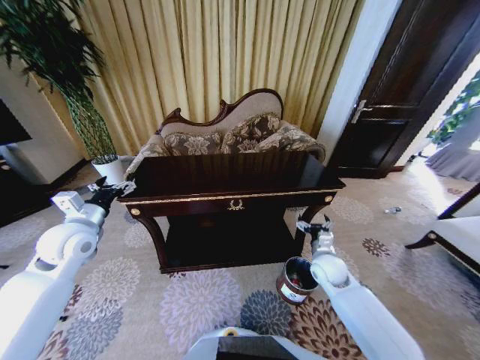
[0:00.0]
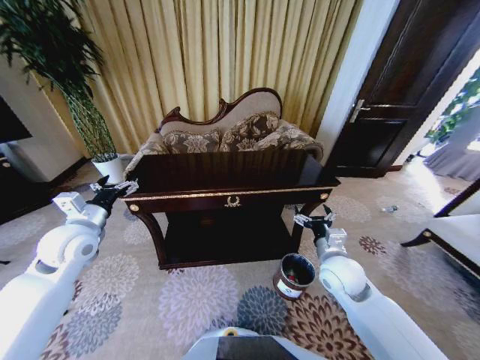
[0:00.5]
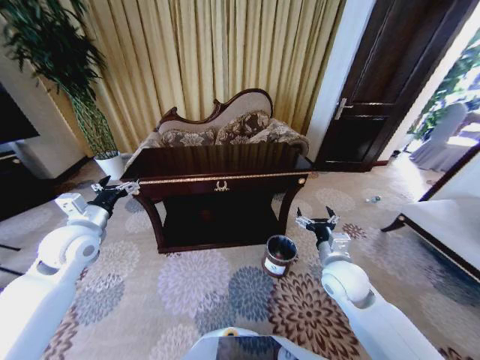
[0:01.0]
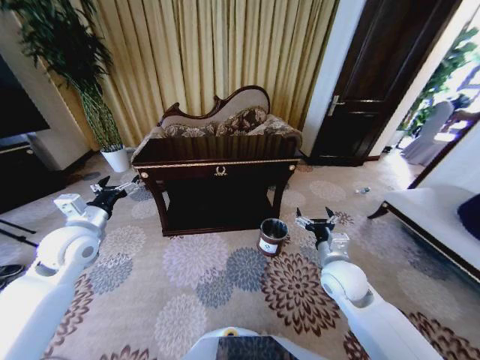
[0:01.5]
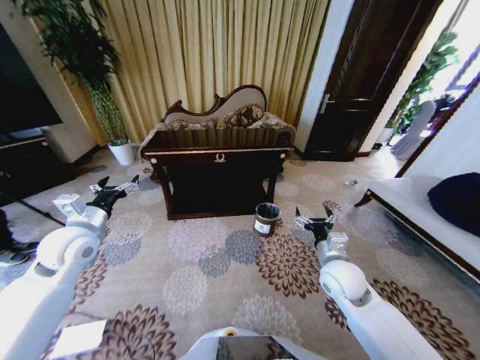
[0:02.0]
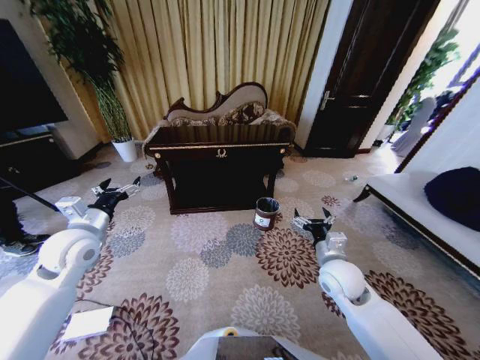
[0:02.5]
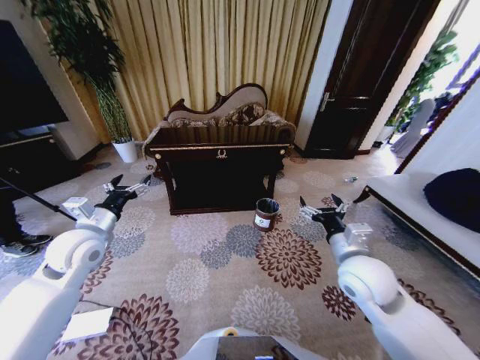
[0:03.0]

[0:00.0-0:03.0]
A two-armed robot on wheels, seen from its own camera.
Task of the whole recording: Move to the front of the table and place the trash on the table into the trash bin.
0:00.0 to 0:01.5: The right gripper is displaced upward and backward by about 5 cm.
0:01.5 to 0:03.0: The right gripper travels upward by approximately 10 cm.

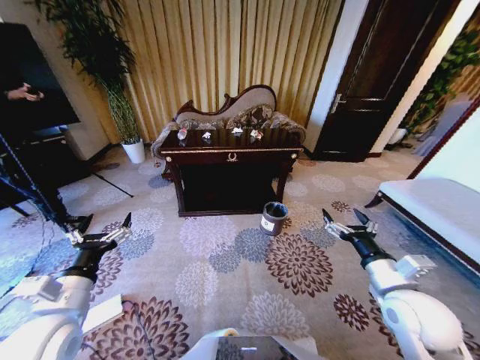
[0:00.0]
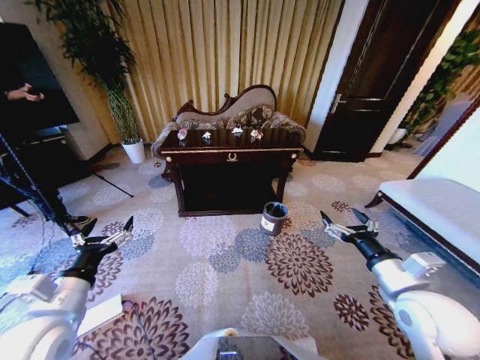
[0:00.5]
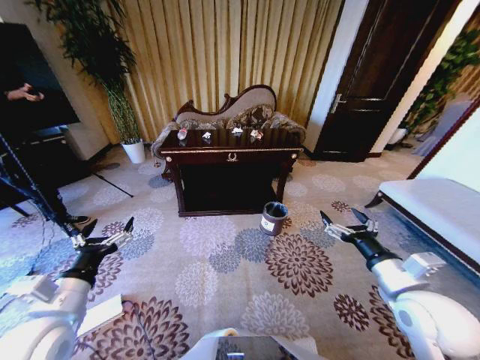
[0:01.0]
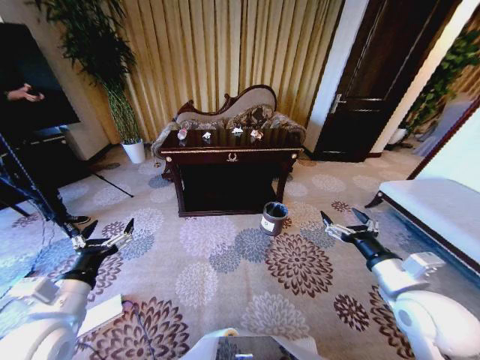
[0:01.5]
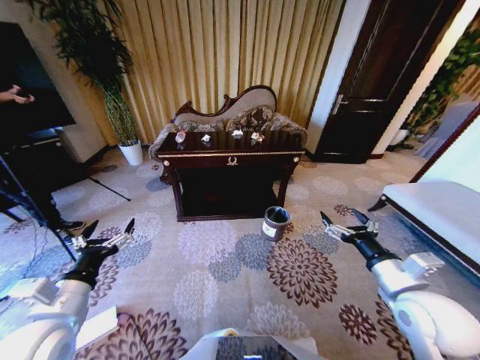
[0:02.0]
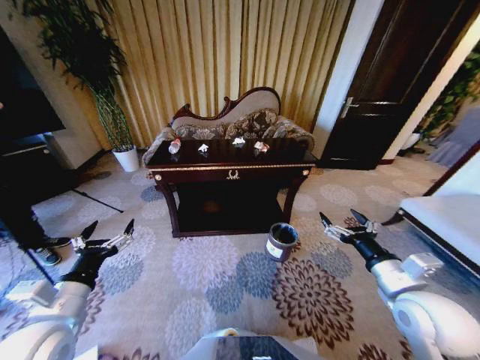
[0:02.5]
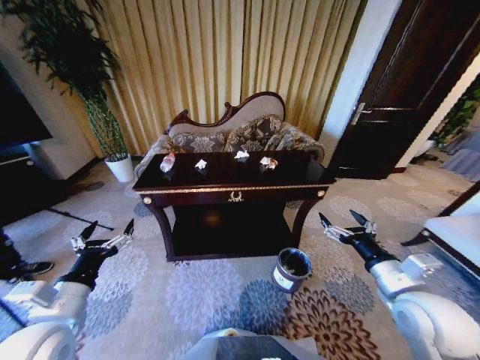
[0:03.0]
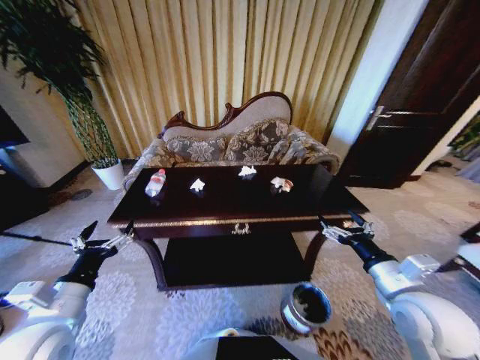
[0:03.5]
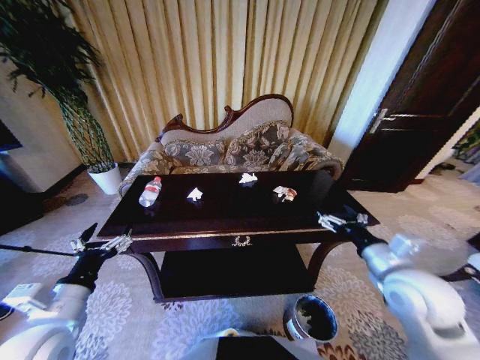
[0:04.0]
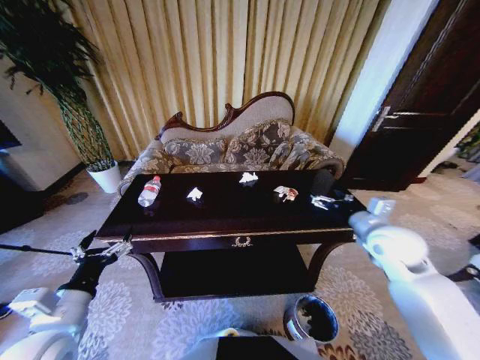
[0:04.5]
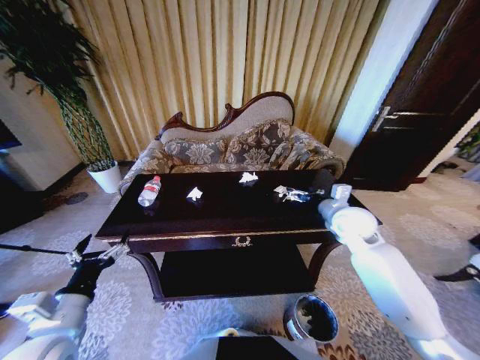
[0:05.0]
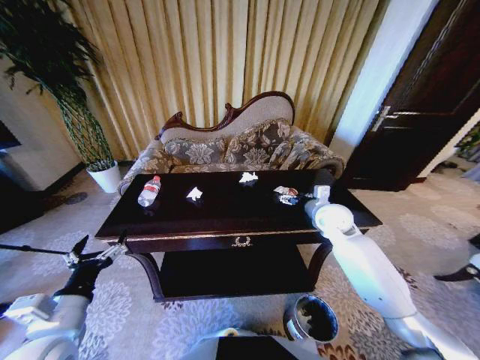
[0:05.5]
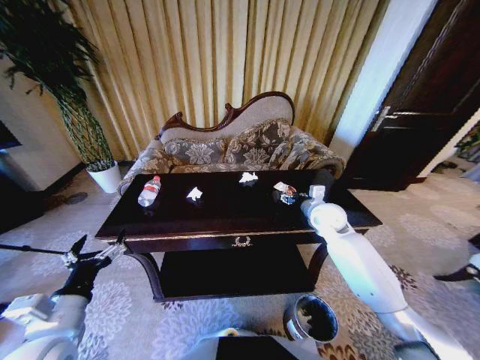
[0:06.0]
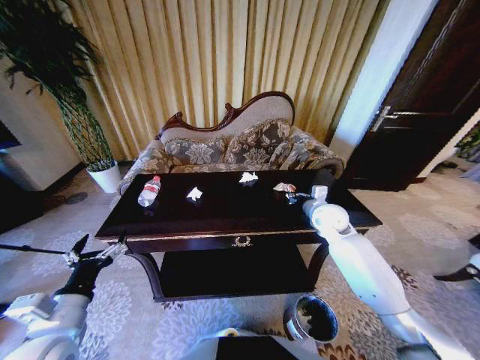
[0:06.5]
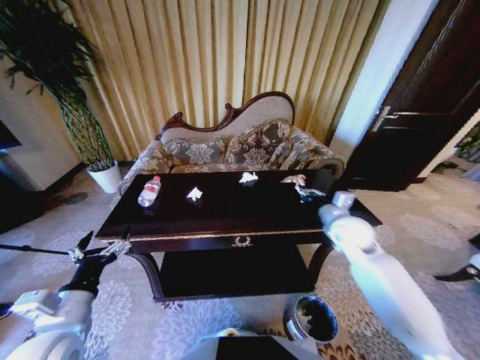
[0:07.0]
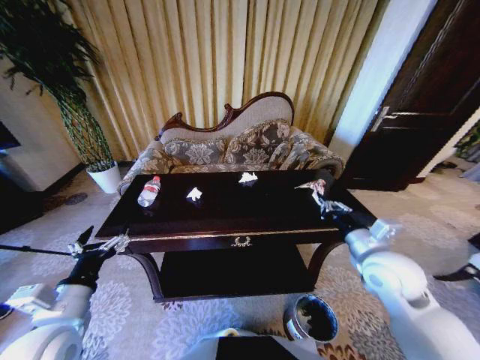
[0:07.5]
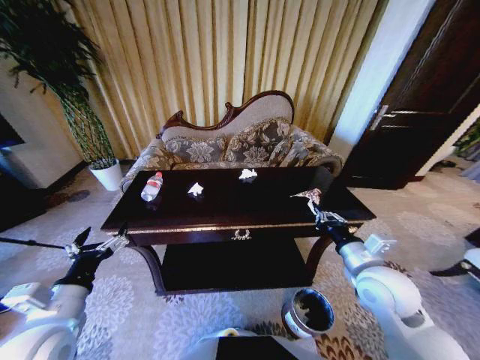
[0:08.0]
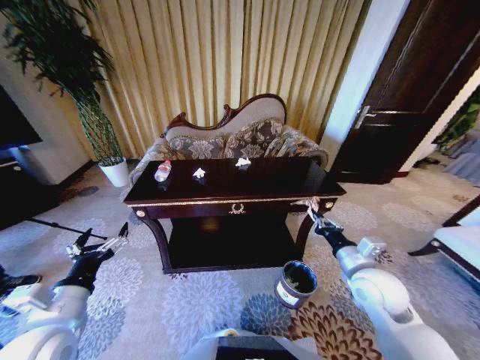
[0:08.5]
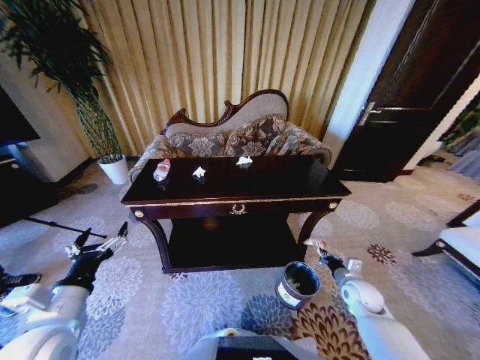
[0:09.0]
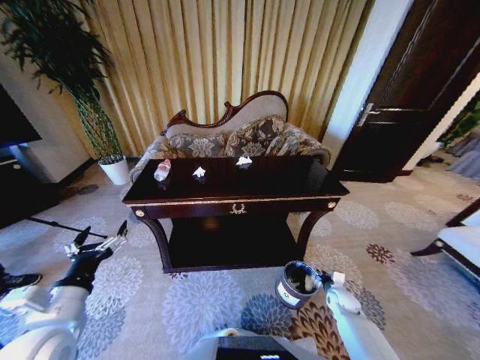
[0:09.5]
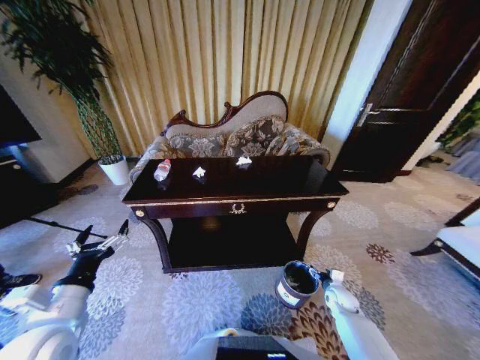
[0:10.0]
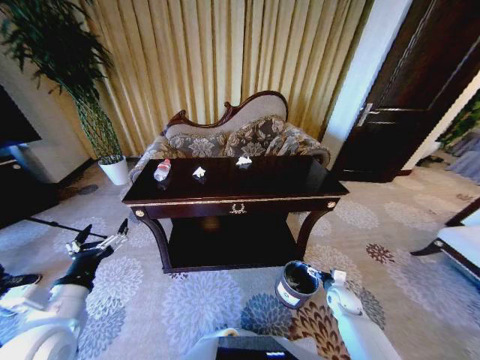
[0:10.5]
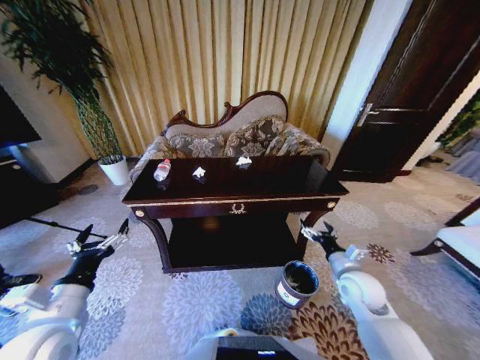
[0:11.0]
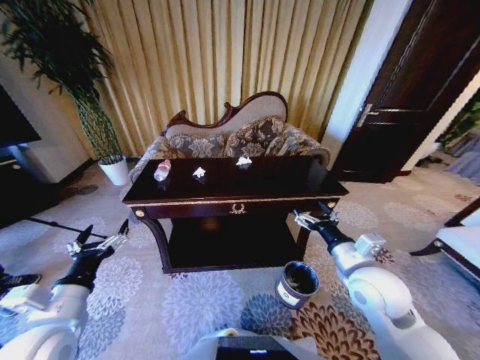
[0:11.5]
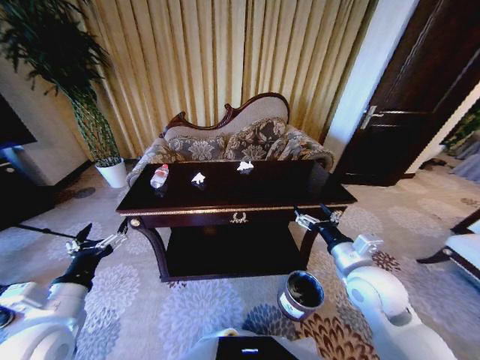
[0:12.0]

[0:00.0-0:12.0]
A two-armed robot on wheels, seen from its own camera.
Task of the whole recording: Move to the front of the table and place the trash on the table into the trash bin.
0:04.0 to 0:06.0: The right gripper moves forward, approximately 25 cm, and closes its fingers.
0:06.0 to 0:08.0: The right gripper heads backward, covering approximately 20 cm, and closes.
0:08.0 to 0:10.0: The right gripper shifts approximately 30 cm downward, and opens.
0:10.0 to 0:12.0: The right gripper travels upward by approximately 30 cm.

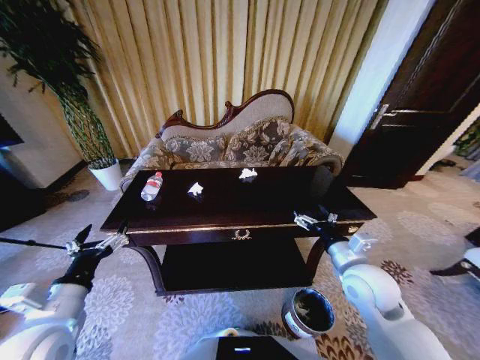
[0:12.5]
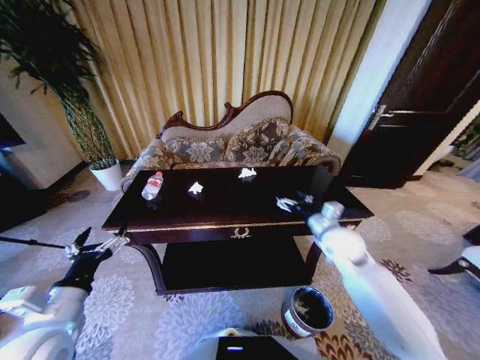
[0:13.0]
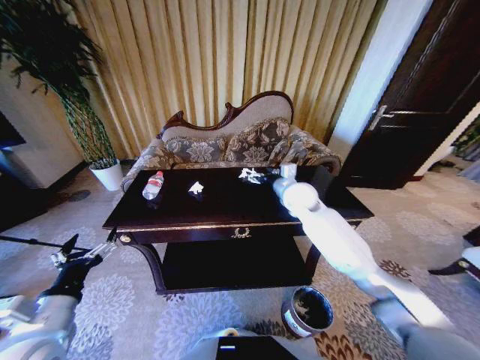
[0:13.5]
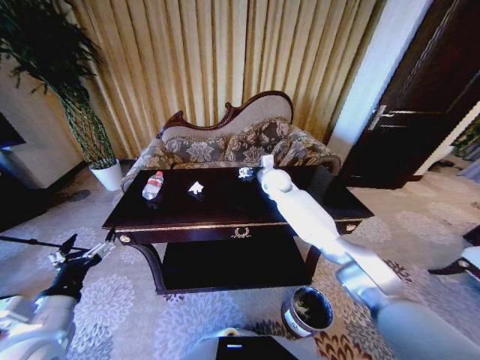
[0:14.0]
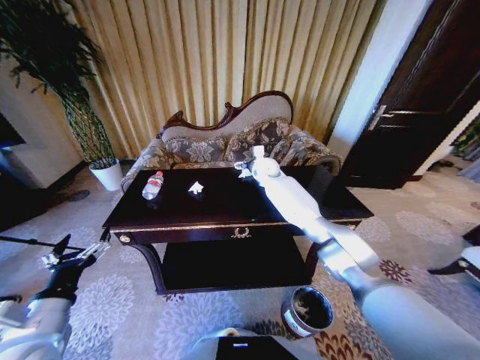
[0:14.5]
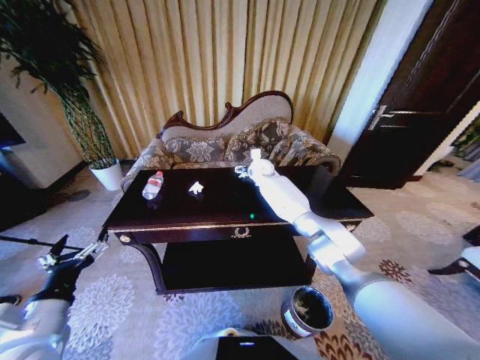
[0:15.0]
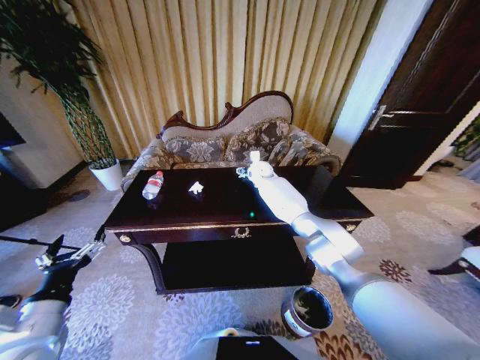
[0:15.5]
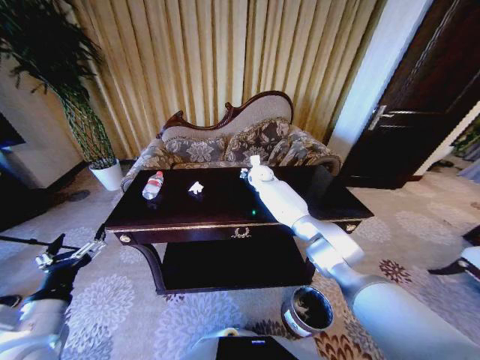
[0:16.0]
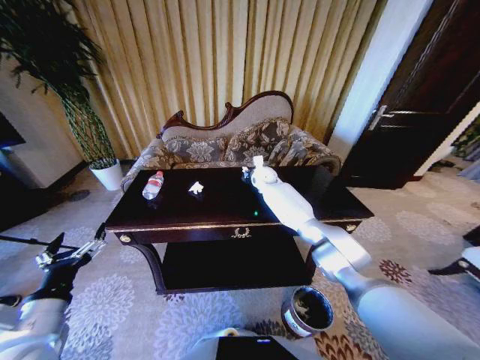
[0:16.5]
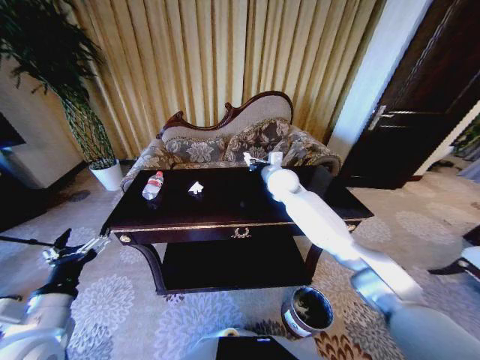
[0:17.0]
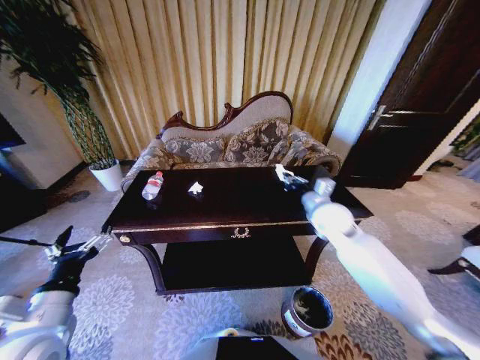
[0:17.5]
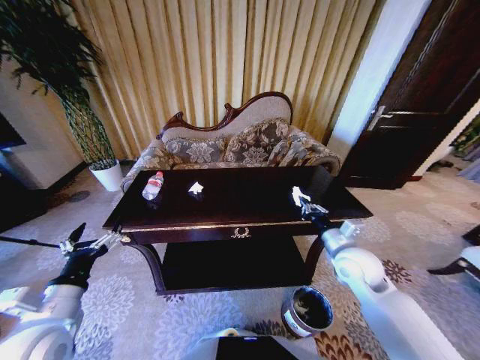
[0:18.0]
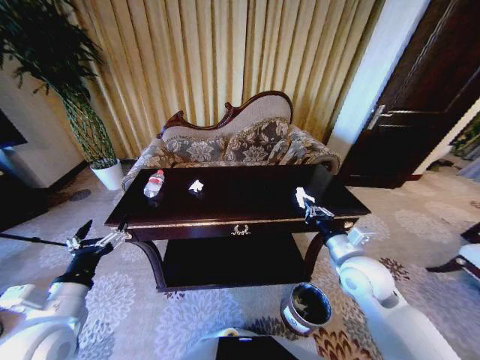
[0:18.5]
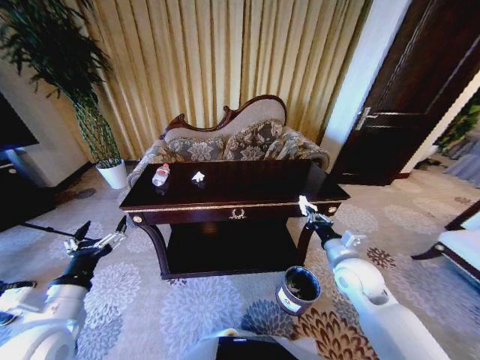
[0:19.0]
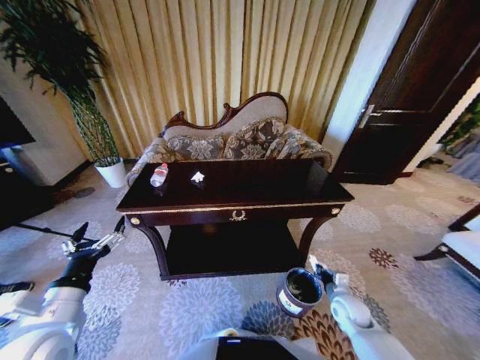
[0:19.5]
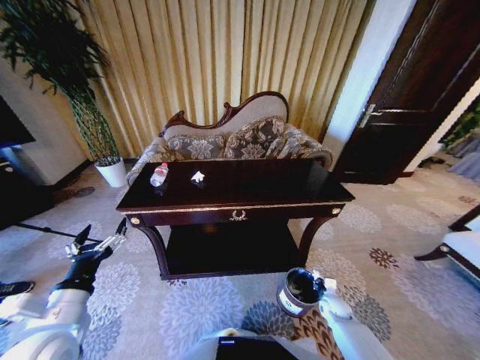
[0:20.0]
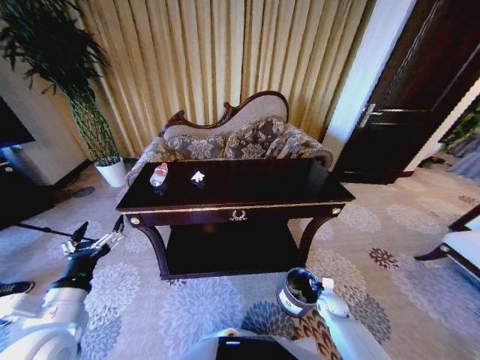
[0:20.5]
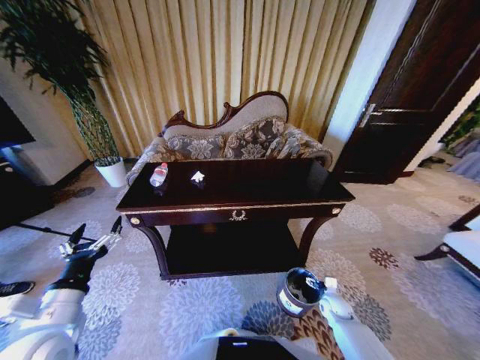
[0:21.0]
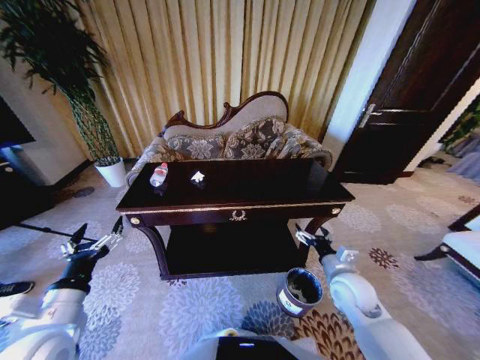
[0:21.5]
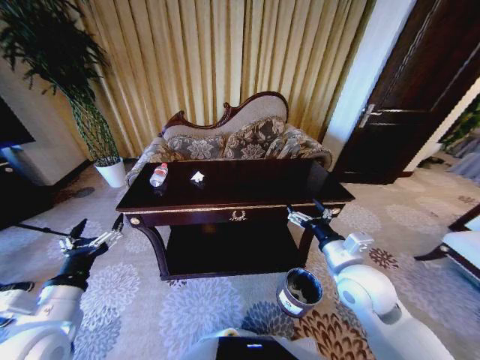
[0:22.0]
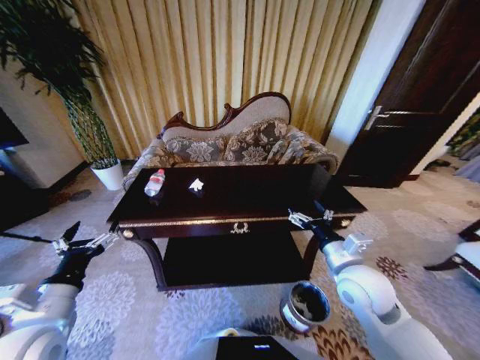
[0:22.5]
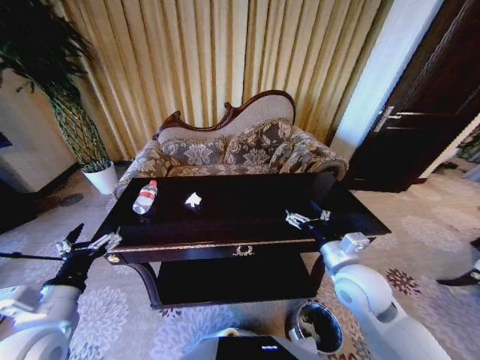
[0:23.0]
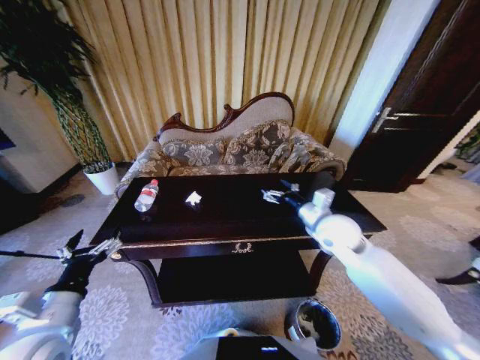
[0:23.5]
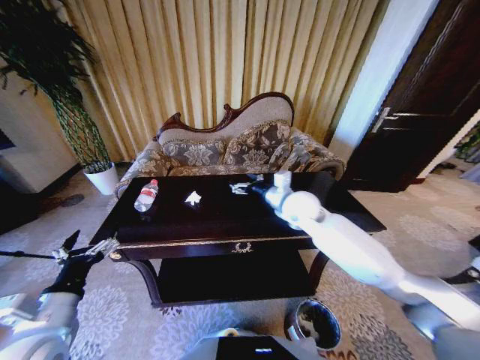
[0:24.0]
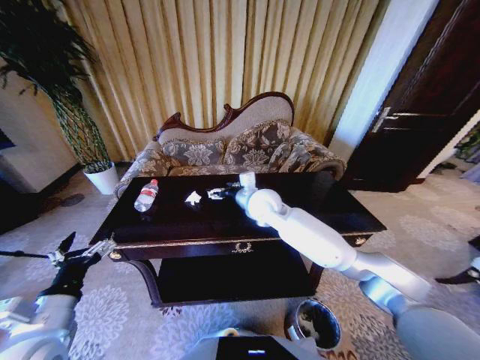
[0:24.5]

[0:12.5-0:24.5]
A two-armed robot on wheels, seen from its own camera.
Task of the whole recording: Move to the front of the table and place the trash on the table into the trash bin.
0:12.5 to 0:14.5: The right gripper shifts roughly 40 cm forward and to the left.
0:14.5 to 0:16.5: The right gripper shifts approximately 5 cm downward, and closes up.
0:16.5 to 0:18.5: The right gripper heads backward and to the right, covering roughly 40 cm.
0:18.5 to 0:20.5: The right gripper moves downward, about 35 cm, and opens its fingers.
0:20.5 to 0:22.5: The right gripper is displaced upward by roughly 35 cm, and opens its fingers.
0:22.5 to 0:24.5: The right gripper heads forward and to the left, covering roughly 30 cm.
